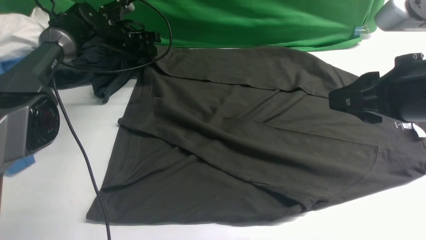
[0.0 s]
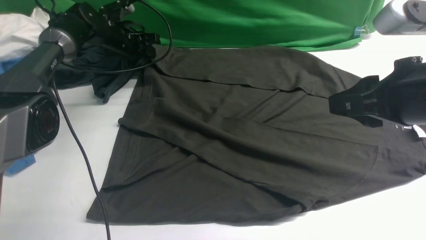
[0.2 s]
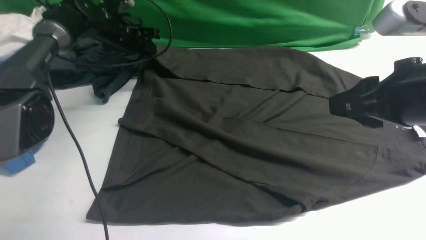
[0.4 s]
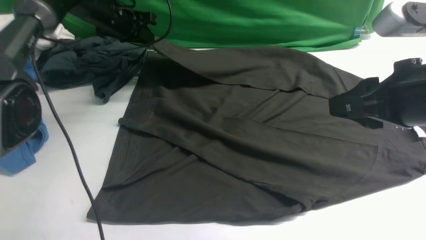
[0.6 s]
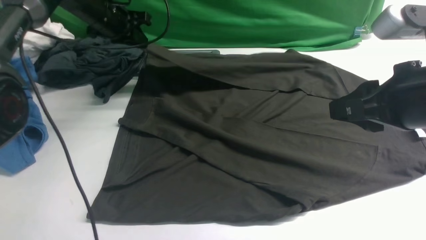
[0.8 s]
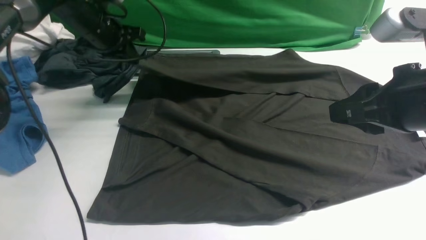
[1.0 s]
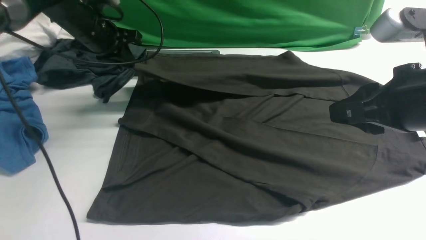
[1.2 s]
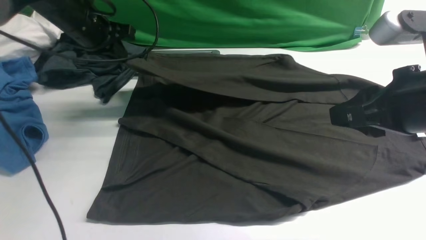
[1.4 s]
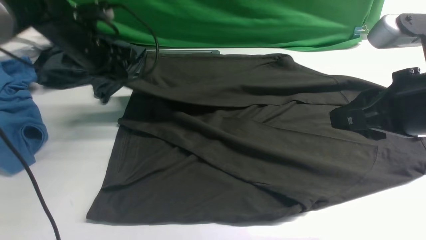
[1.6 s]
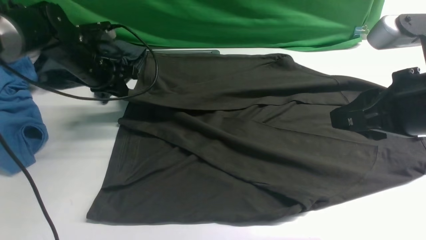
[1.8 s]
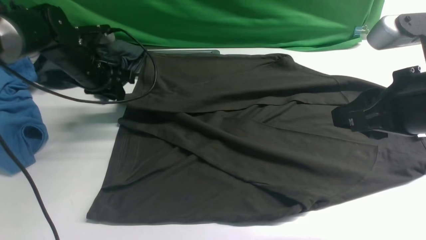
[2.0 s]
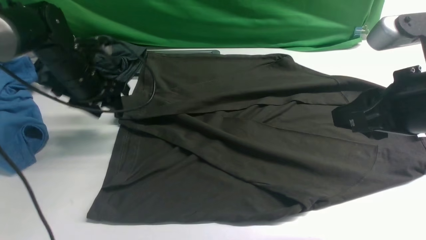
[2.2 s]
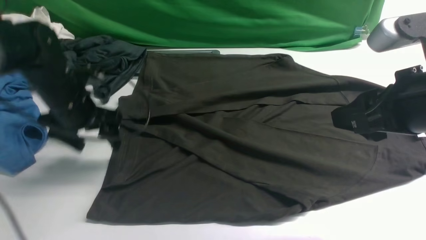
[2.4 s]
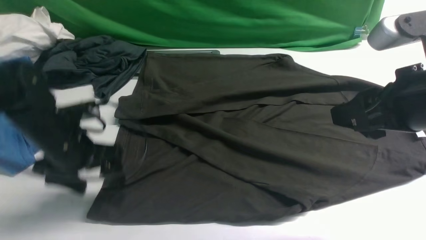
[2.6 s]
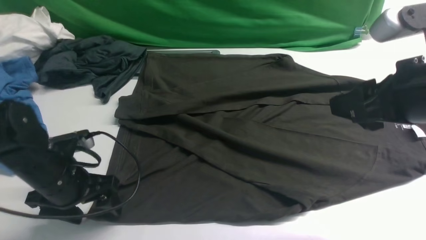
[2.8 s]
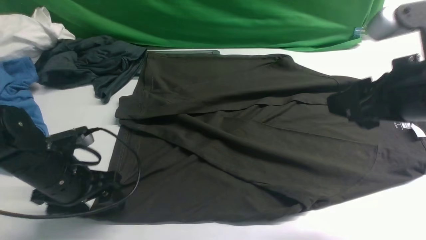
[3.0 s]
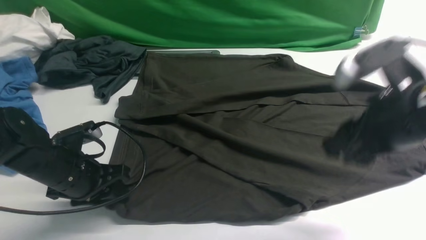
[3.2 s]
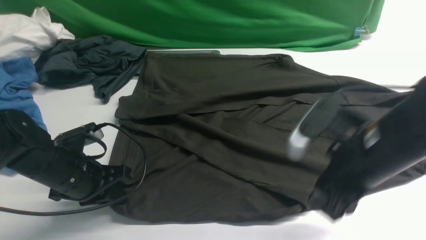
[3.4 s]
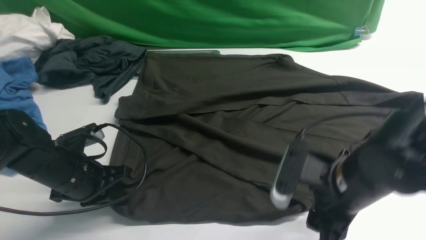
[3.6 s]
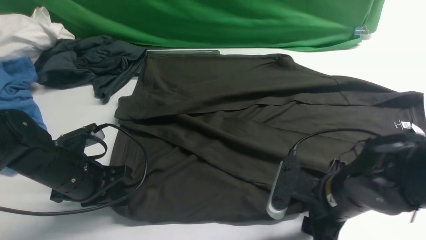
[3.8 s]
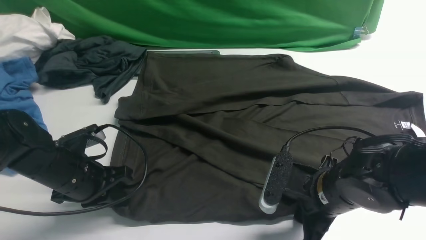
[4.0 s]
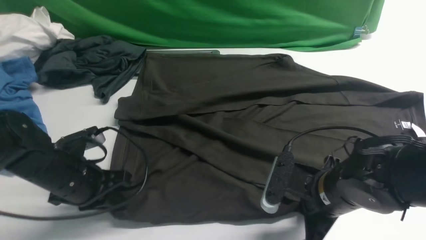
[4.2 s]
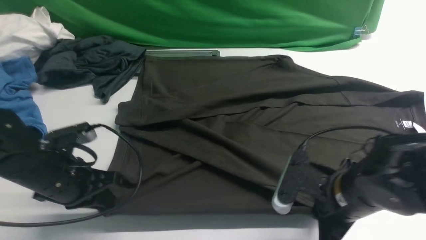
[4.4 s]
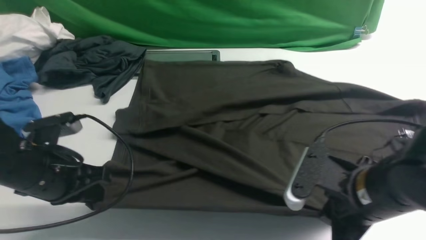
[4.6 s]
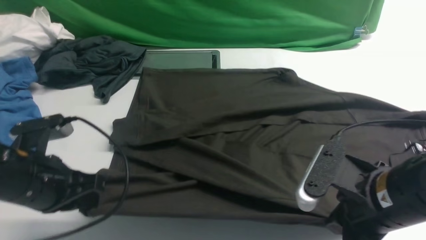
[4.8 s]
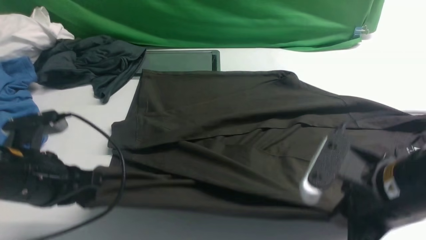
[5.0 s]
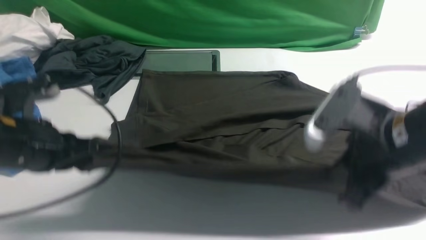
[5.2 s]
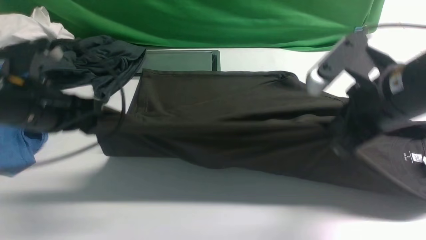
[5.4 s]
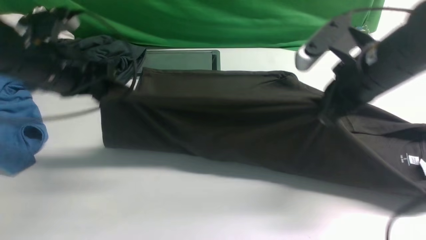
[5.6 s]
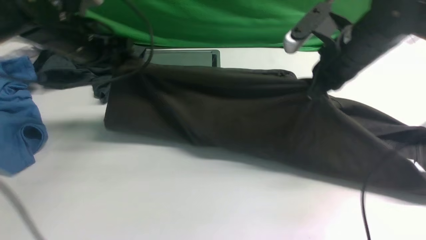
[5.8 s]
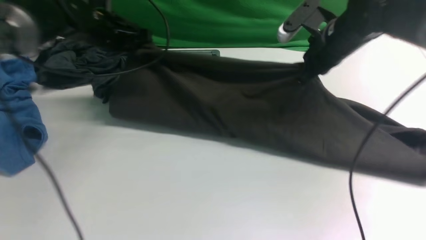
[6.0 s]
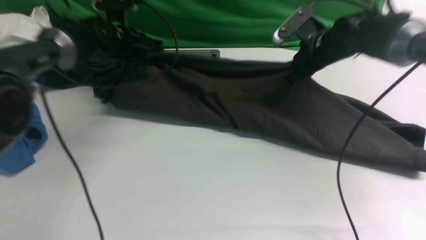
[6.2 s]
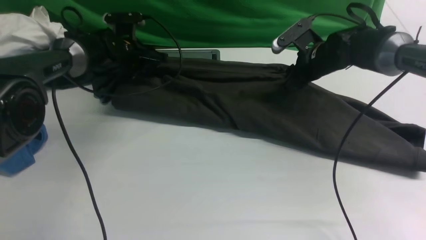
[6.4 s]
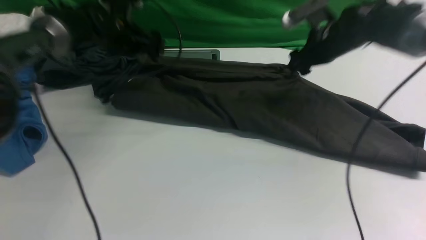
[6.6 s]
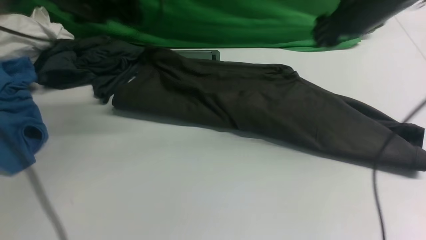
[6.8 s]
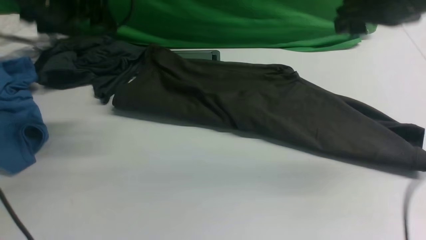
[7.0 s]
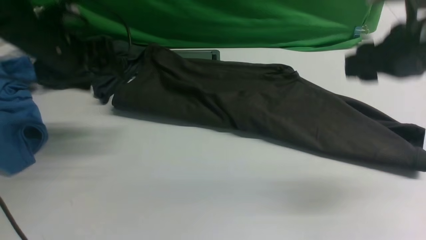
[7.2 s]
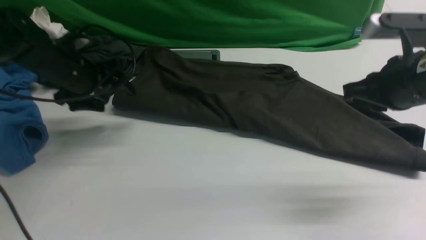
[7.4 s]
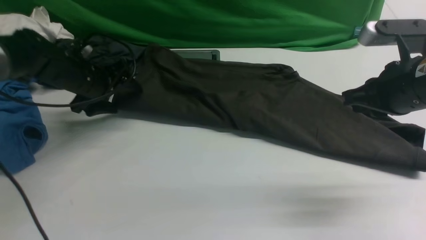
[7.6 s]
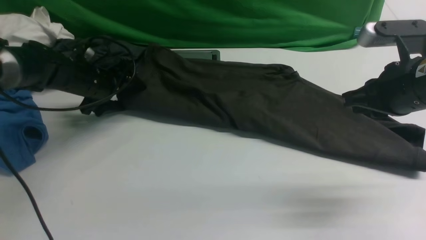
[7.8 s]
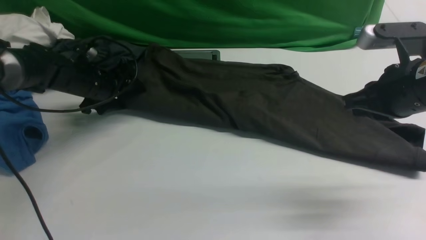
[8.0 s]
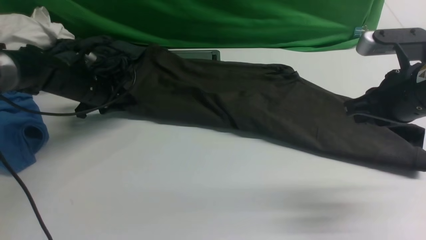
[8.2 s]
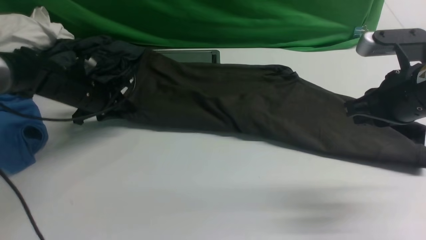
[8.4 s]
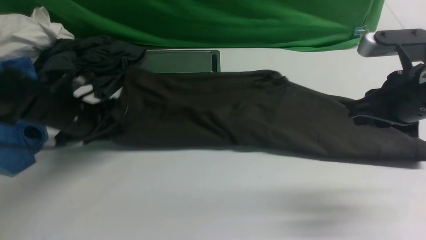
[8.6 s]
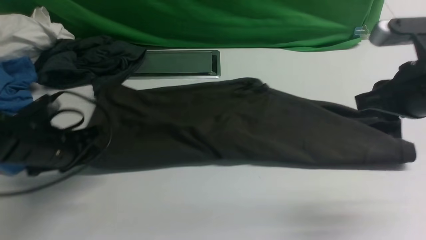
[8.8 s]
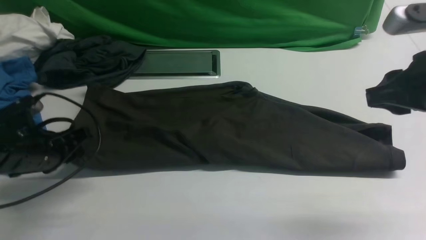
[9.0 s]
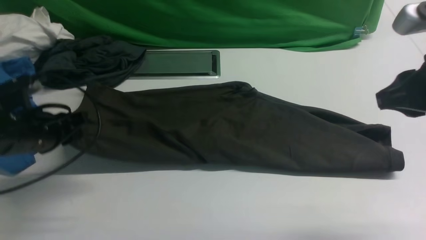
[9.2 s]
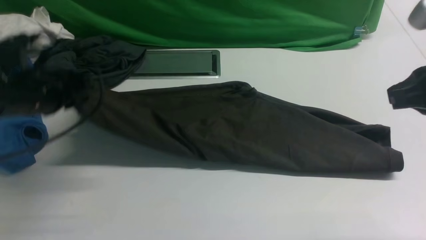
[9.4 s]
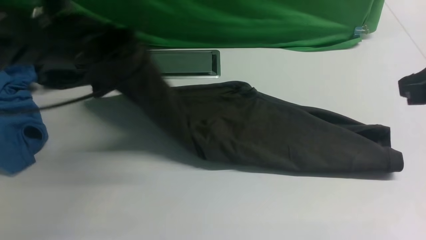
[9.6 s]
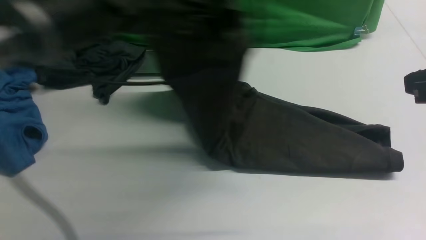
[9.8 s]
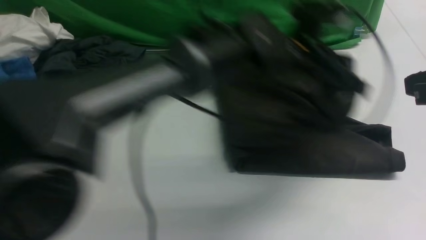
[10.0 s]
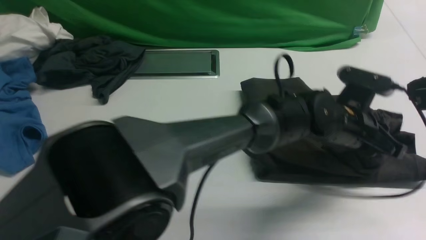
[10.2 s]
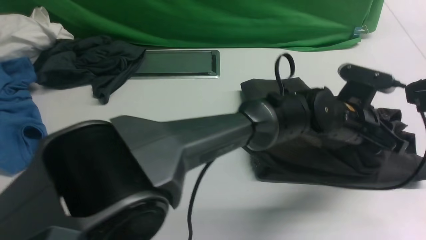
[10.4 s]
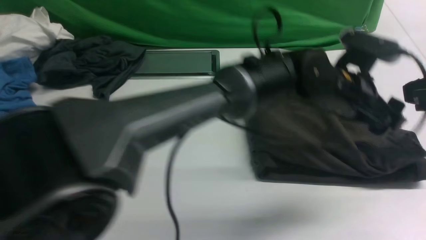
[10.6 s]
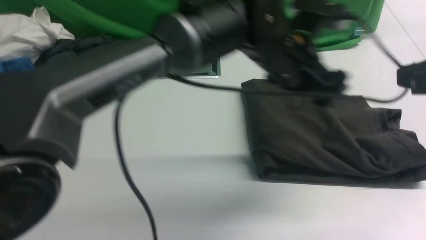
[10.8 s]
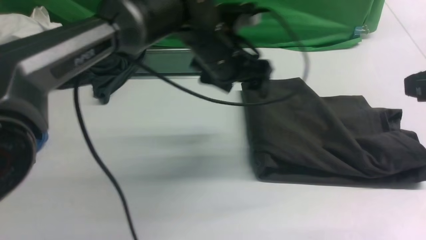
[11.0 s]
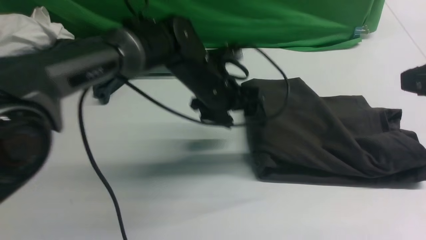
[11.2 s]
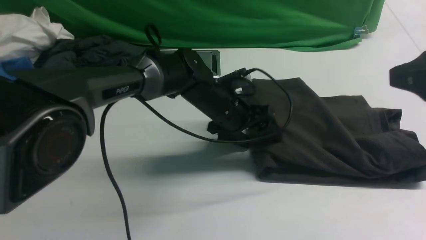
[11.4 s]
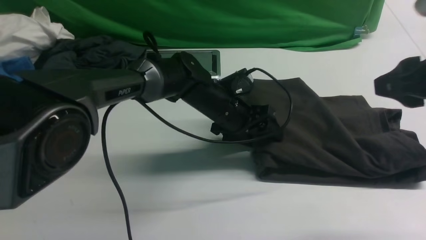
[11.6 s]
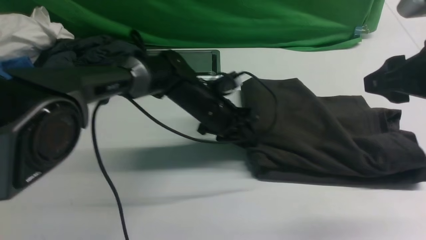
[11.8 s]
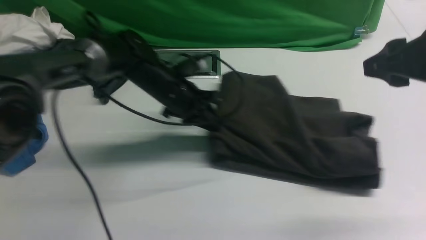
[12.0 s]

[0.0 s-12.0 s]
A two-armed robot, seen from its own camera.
Step, 0.8 to 2.2 s: use the left arm to drag and drop the cuff onto the cuff closest to the left arm.
Step, 2.4 to 4.8 s: use both arms simultaneously to clamp the lower edge of the clothing fabric.
Step, 5.0 to 7.4 s: use both arms to drag the lower edge of the fabric forward and fold it over the upper edge.
Step, 7.6 to 9.2 s: Hold the left edge of the fabric with your left arm.
Step, 9.4 to 10.6 s: Drag the left edge of the fabric to the left with your left arm and fold it to the right edge.
0.0 to 1.6 s: The left gripper is displaced backward and upward by approximately 15 cm.
1.6 to 3.0 s: The right gripper opens, while the left gripper travels backward and downward by about 20 cm, and opens its fingers.
3.0 to 4.4 s: The right gripper shifts some 15 cm downward, and closes its fingers, while the left gripper closes its fingers.
4.4 to 6.0 s: Both grippers move forward, roughly 25 cm.
6.0 to 7.6 s: The right gripper shifts approximately 15 cm backward, and opens, then closes once more. The left gripper goes up and down, approximately 15 cm each way, reversing 2 times, and opens.
7.6 to 9.0 s: The left gripper travels backward by about 15 cm, and closes. Meanwhile the right gripper shifts by some 5 cm.
9.0 to 10.4 s: The left gripper shifts roughly 40 cm to the right, and opens up; the right gripper moves backward, roughly 5 cm.
10.4 to 12.0 s: The right gripper is displaced forward by approximately 5 cm, and opens its fingers. Meanwhile the left gripper goes about 25 cm to the left, and closes.

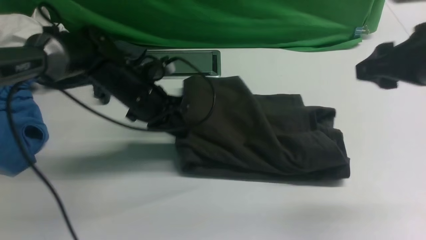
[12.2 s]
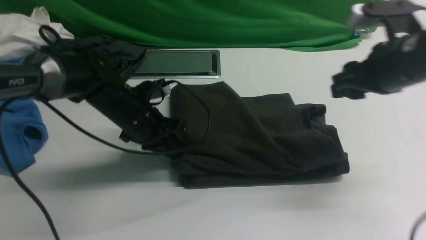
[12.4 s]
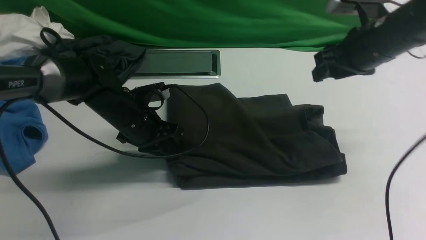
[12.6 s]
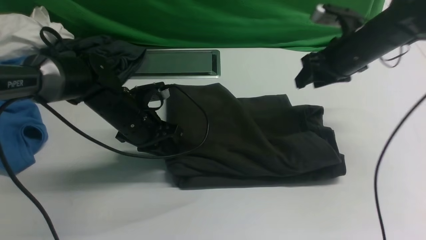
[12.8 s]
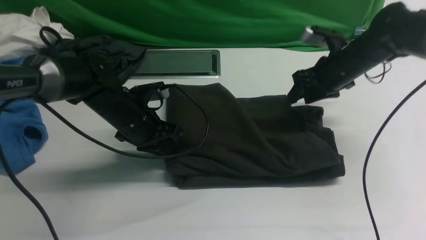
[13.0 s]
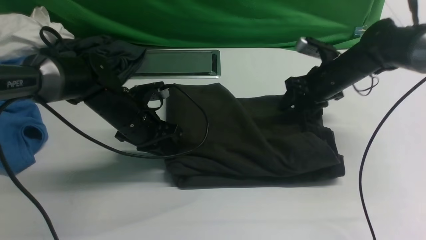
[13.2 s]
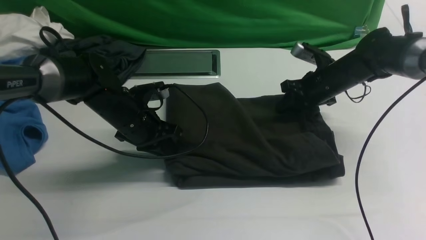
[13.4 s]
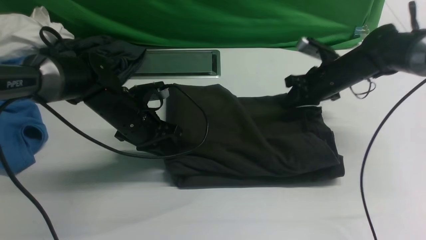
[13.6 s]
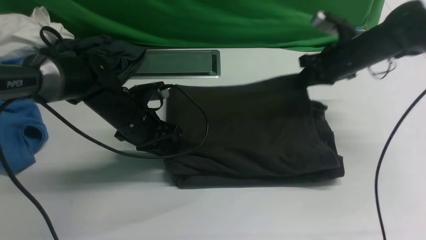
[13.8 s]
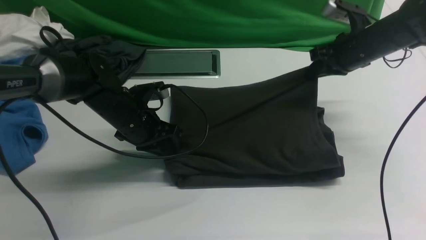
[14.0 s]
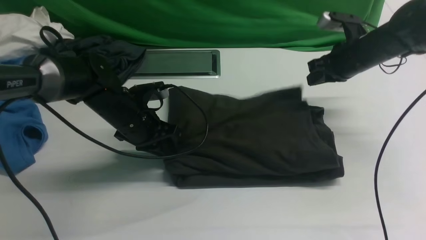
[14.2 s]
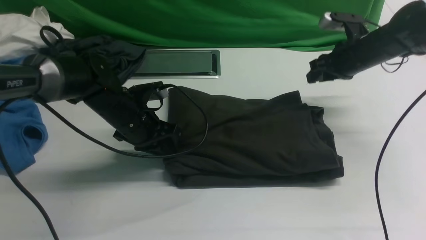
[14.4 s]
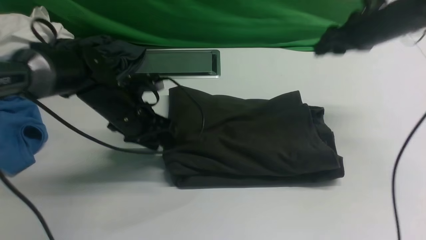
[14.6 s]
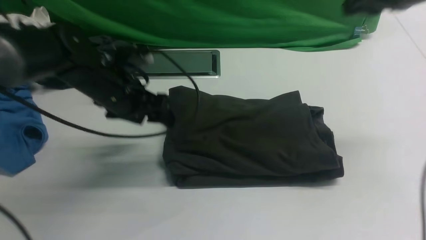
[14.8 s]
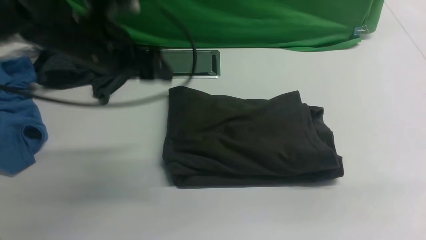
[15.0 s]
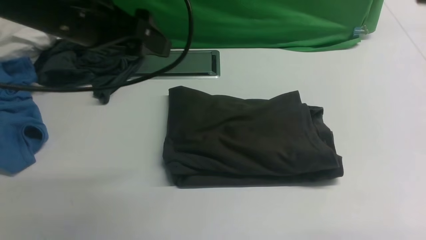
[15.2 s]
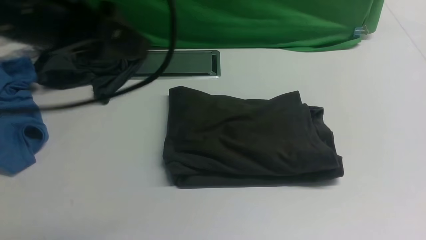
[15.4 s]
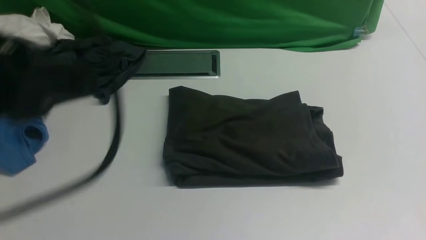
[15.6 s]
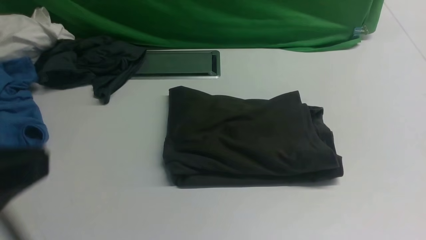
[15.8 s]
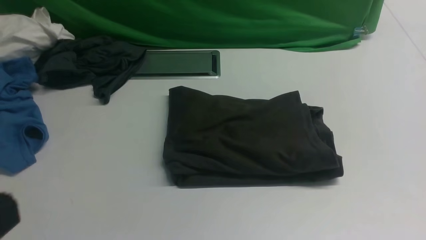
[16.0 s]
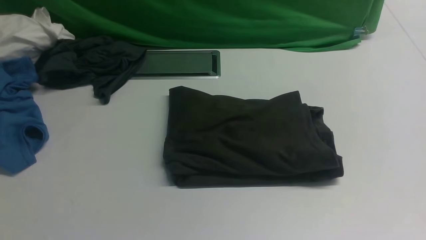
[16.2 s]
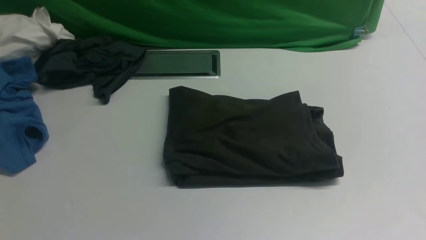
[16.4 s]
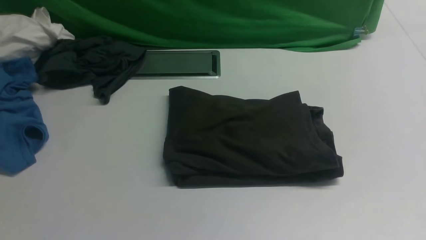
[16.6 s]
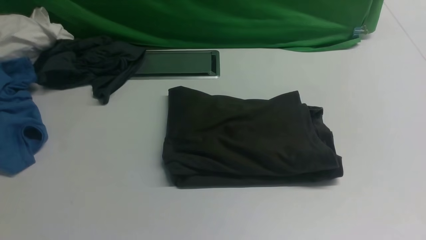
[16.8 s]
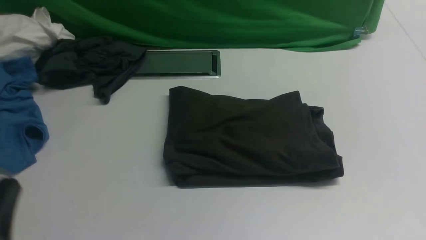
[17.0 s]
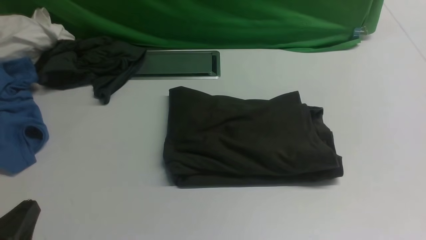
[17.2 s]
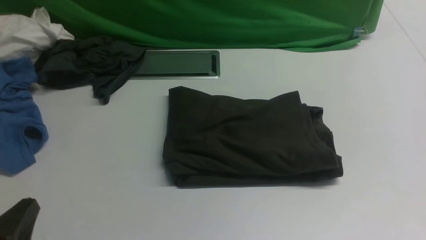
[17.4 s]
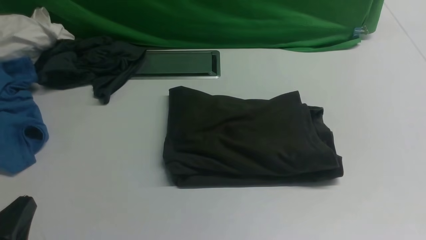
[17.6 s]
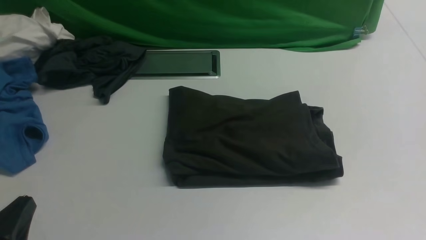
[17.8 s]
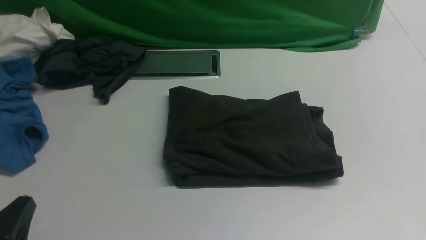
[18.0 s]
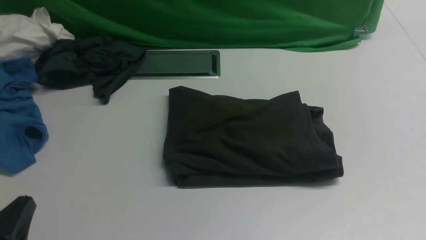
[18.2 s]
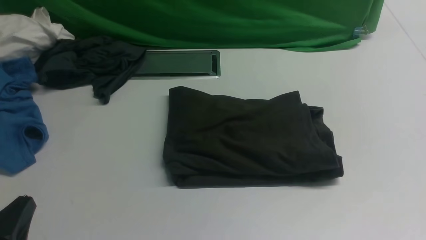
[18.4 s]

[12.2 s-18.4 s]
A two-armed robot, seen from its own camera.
12.2 to 13.8 s: The right gripper moves forward and downward, roughly 20 cm, and closes its fingers.
13.8 to 15.4 s: The right gripper shifts approximately 35 cm backward and upward, and opens, then closes once more. Meanwhile the left gripper travels upward and backward by about 30 cm, and opens its fingers.
15.4 to 16.8 s: The left gripper goes some 20 cm backward and downward, and closes its fingers.
16.8 to 18.4 s: The left gripper goes some 10 cm downward.
